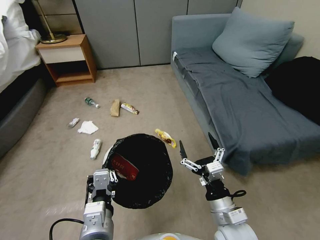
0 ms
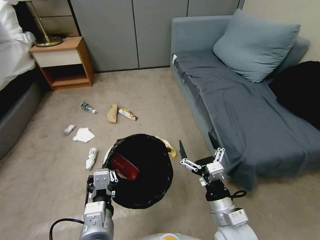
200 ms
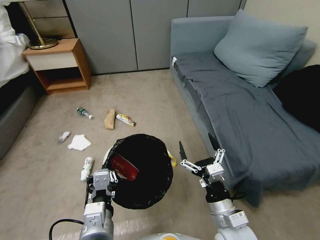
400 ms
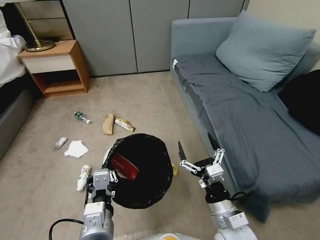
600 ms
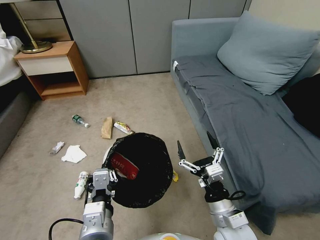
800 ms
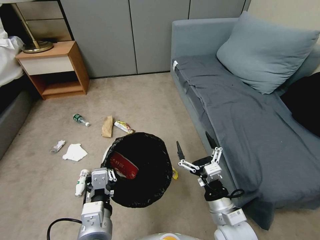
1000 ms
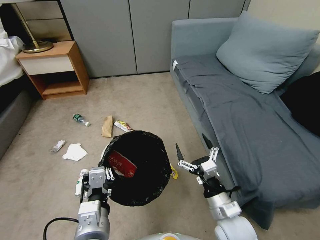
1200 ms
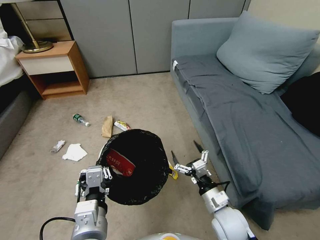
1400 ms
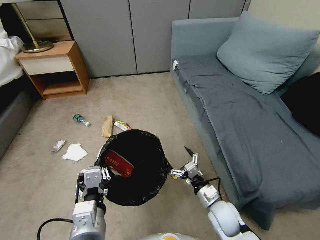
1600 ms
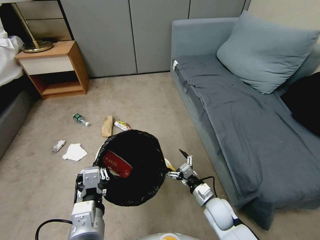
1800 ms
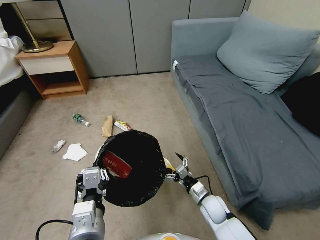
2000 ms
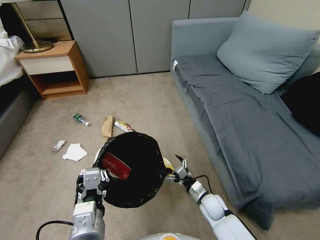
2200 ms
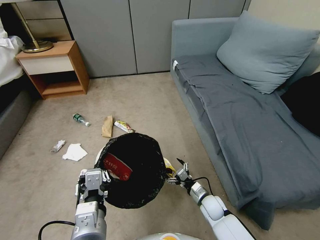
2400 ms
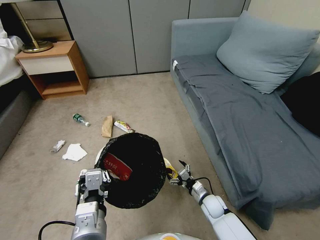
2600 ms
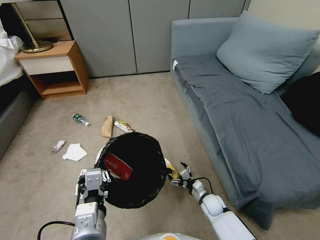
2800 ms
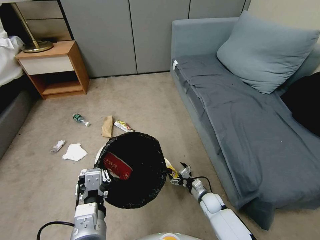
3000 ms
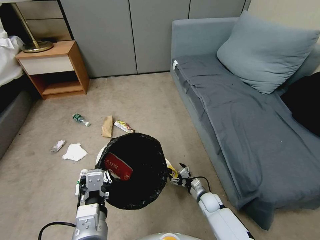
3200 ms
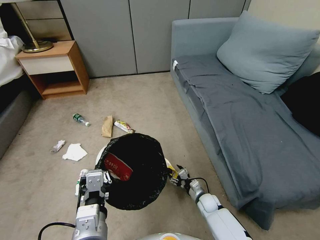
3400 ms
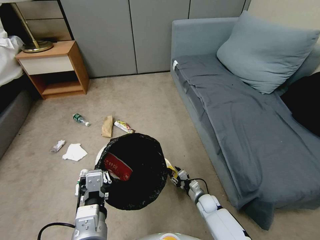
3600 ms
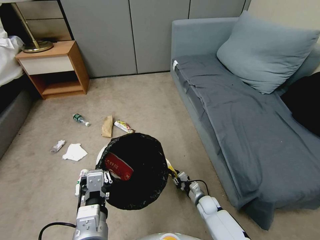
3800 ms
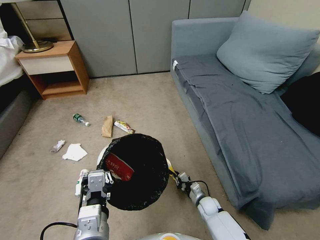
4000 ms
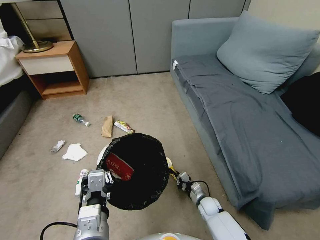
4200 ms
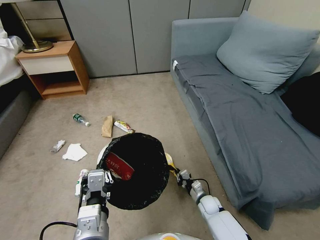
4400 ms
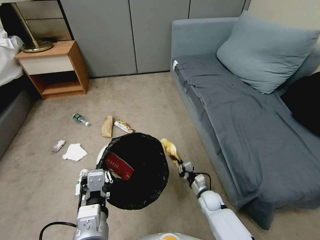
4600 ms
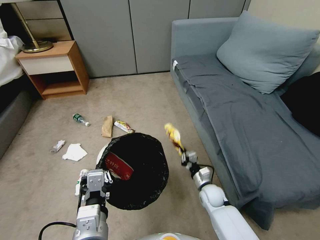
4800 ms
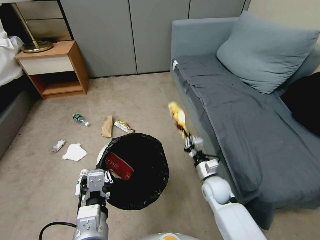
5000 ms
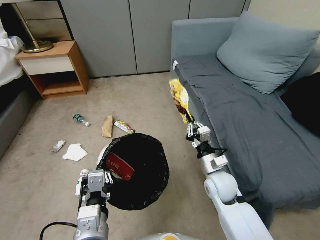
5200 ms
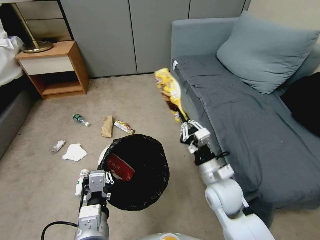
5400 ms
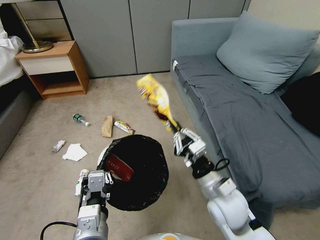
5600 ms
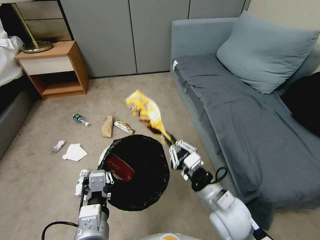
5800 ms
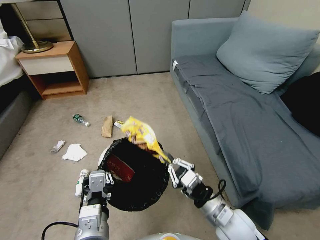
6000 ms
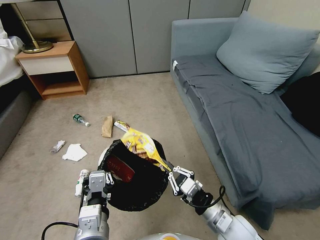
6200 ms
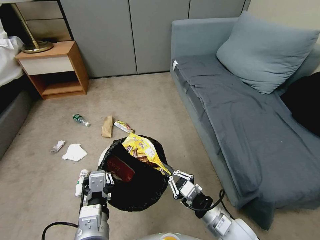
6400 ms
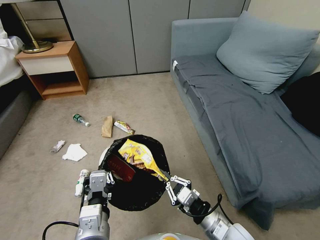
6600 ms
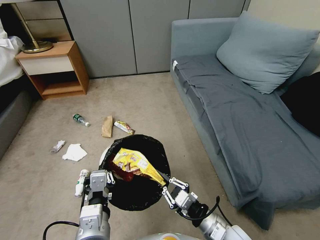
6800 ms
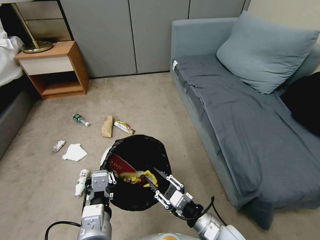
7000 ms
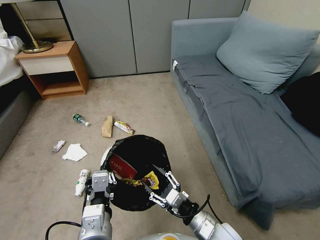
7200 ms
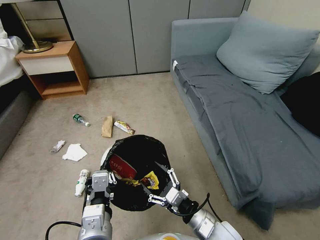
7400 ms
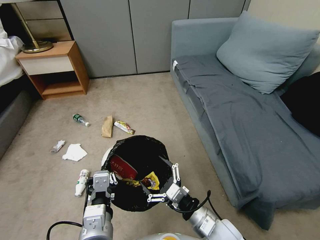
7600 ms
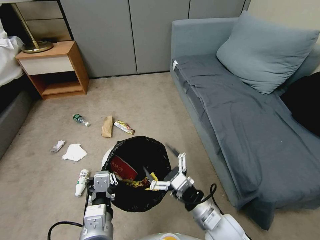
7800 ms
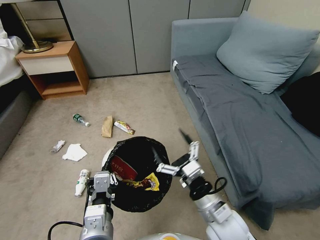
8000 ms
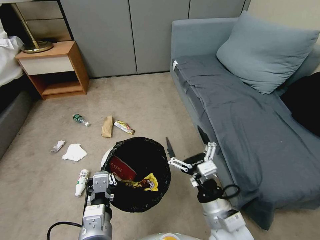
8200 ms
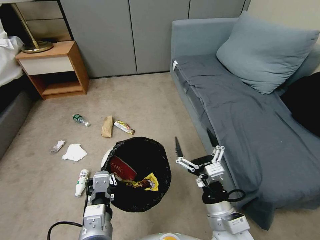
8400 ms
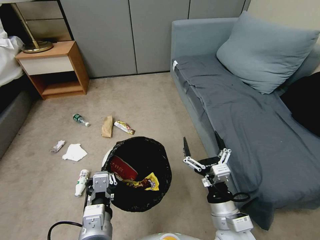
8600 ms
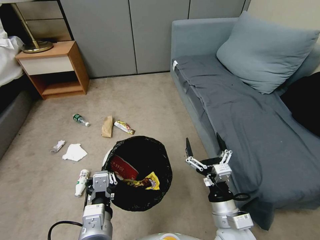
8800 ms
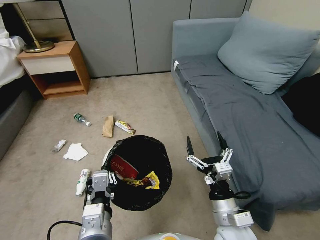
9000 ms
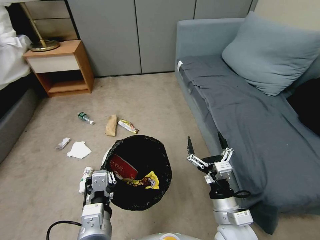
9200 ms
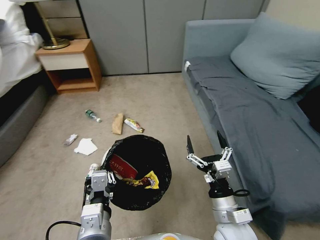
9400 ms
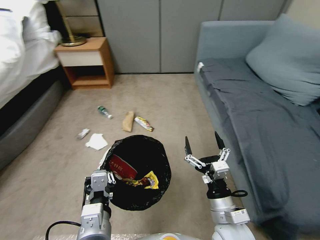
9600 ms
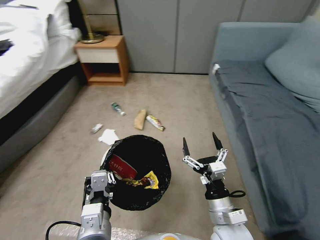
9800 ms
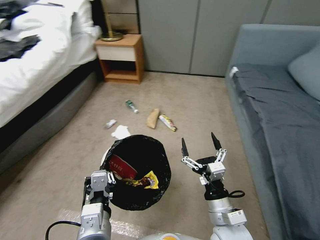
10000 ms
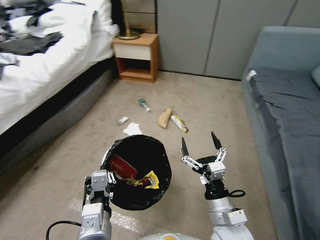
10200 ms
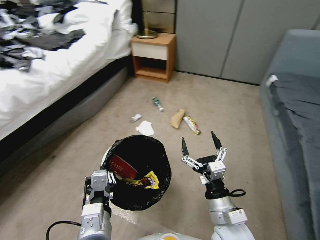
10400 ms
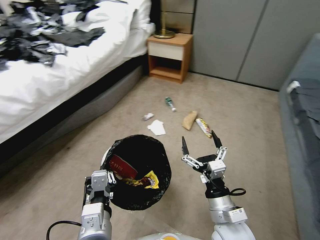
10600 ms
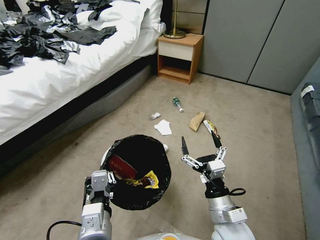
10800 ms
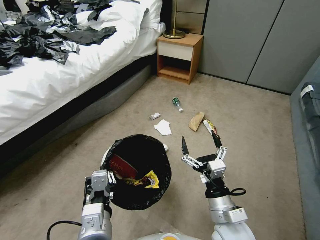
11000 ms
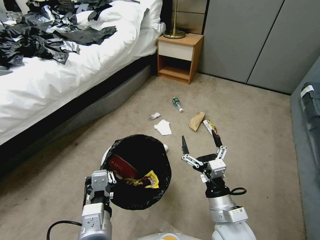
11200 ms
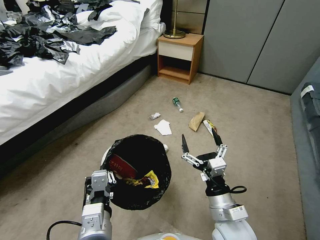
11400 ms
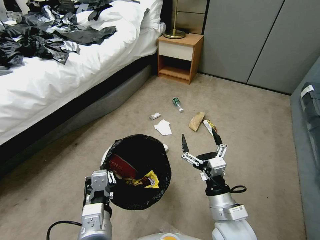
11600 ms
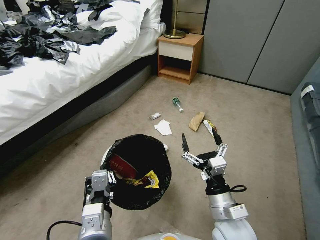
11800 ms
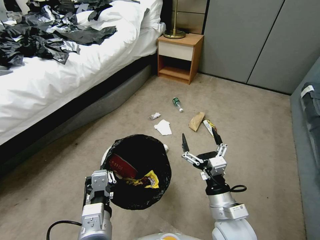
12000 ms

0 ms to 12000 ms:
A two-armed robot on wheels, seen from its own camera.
Task of the whole recording: Pick up the trash bin, then pick up the garbage from the floor and place it into the trash bin.
0 ms to 1600 ms: The right gripper shifts approximately 10 cm downward and forward.
1600 ms to 3000 ms: The right gripper heads downward and forward, covering roughly 15 cm.
3000 ms to 4400 ms: The right gripper closes its fingers.
4400 ms to 6000 ms: The right gripper heads upward and backward, covering some 30 cm.
6000 ms to 7600 ms: The right gripper opens its fingers.

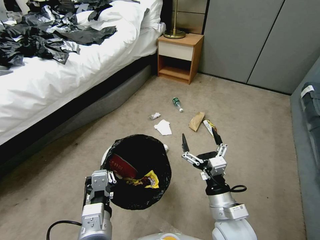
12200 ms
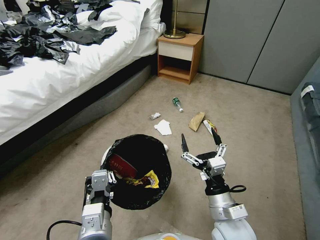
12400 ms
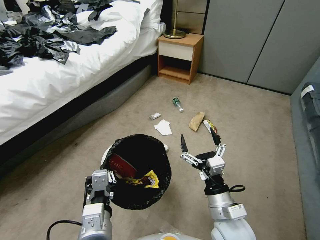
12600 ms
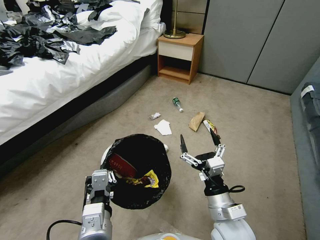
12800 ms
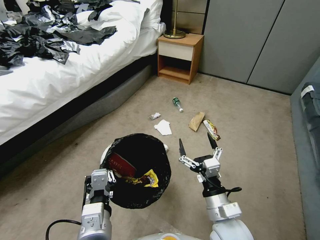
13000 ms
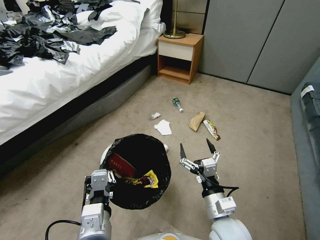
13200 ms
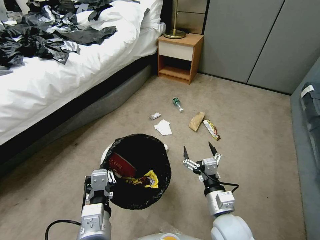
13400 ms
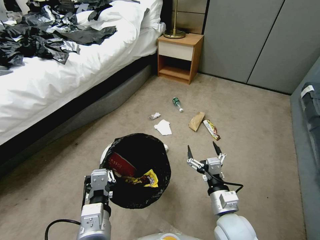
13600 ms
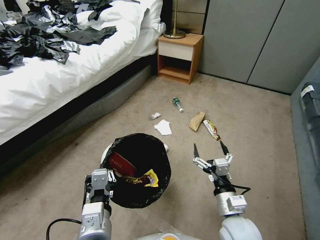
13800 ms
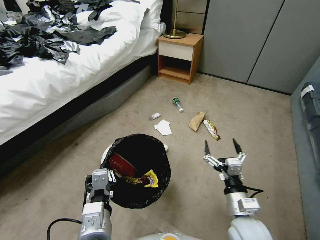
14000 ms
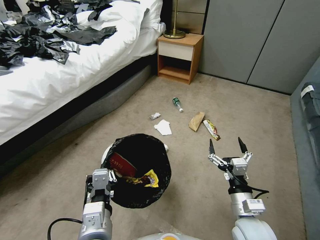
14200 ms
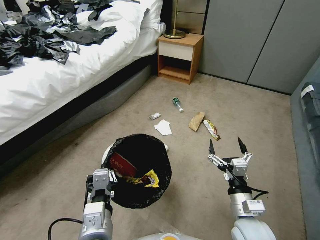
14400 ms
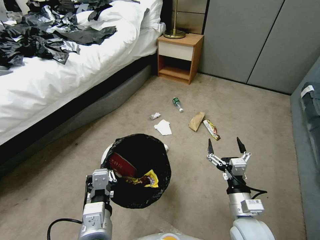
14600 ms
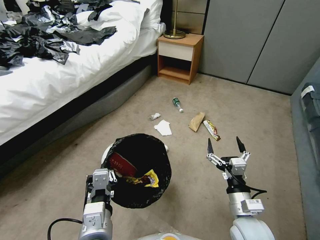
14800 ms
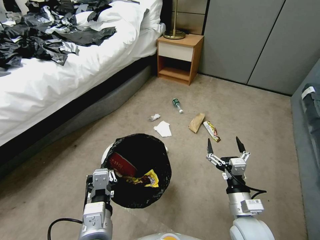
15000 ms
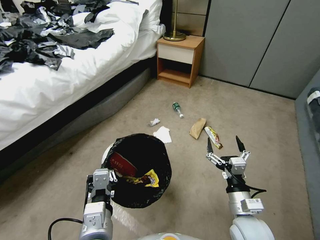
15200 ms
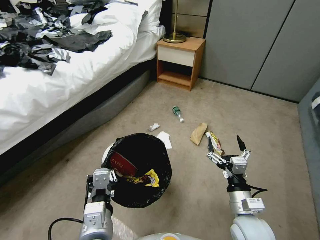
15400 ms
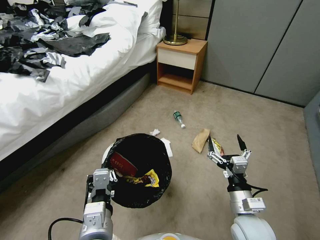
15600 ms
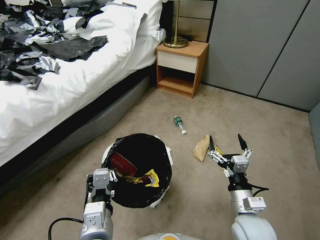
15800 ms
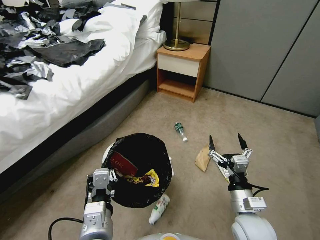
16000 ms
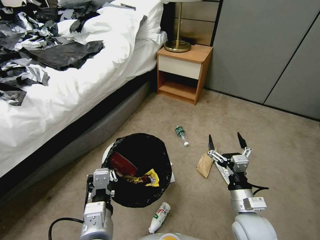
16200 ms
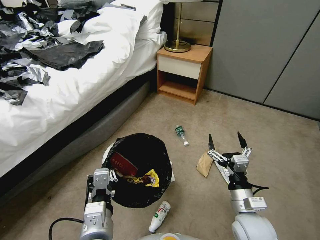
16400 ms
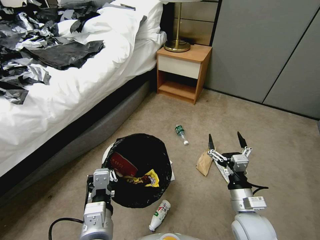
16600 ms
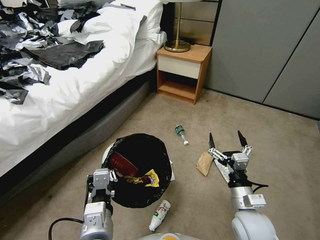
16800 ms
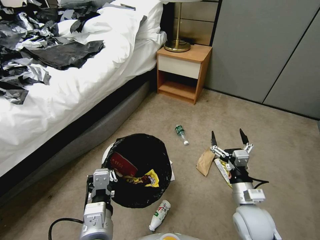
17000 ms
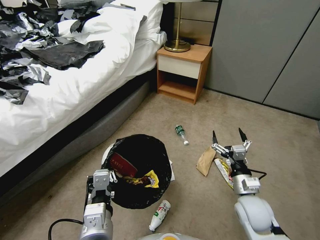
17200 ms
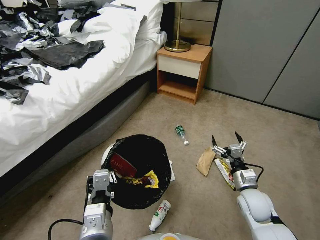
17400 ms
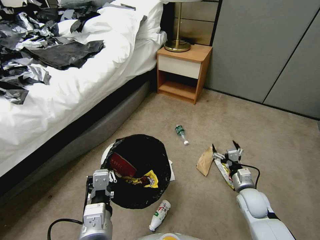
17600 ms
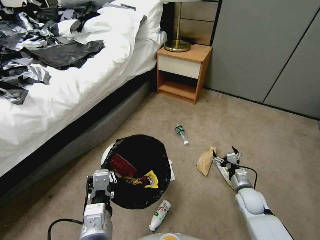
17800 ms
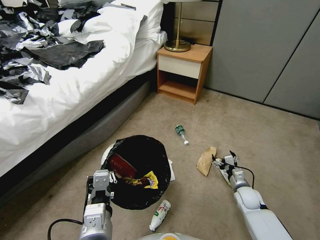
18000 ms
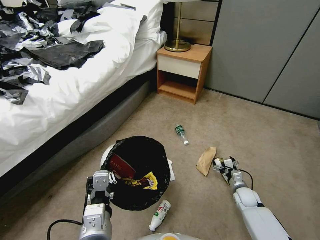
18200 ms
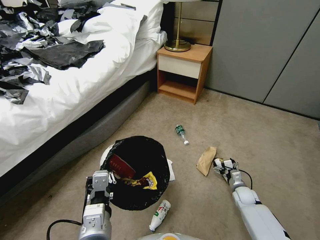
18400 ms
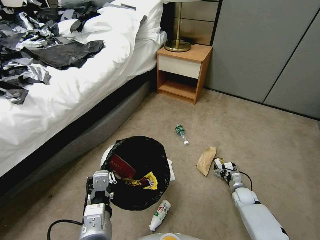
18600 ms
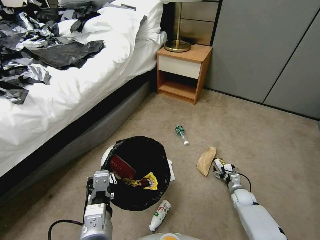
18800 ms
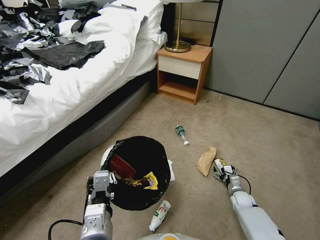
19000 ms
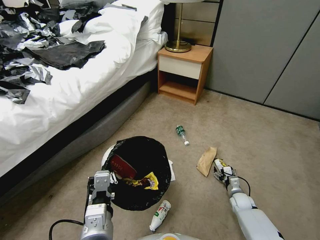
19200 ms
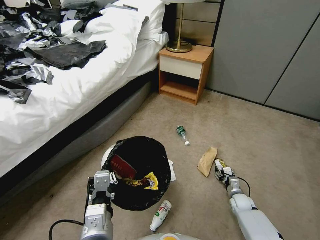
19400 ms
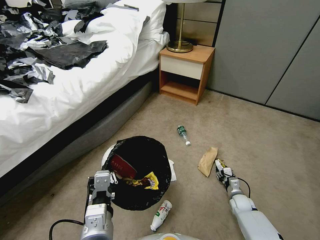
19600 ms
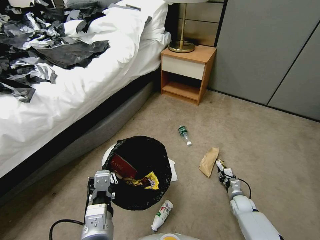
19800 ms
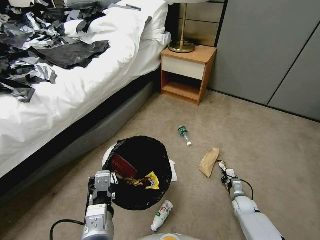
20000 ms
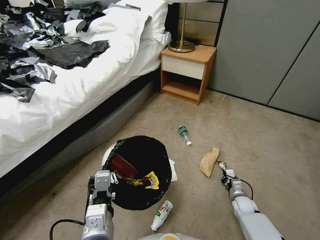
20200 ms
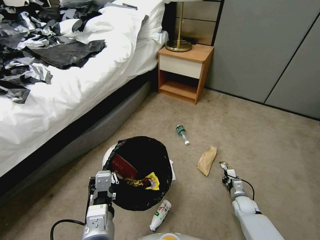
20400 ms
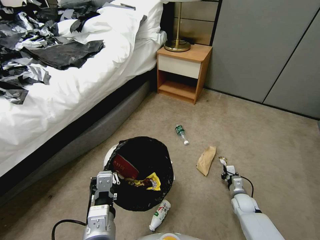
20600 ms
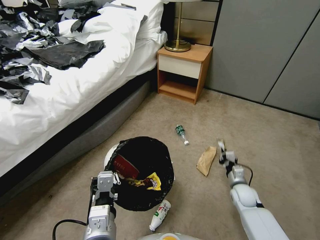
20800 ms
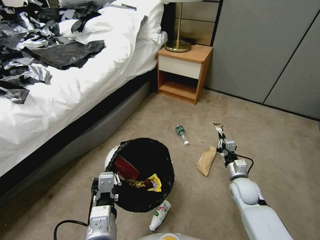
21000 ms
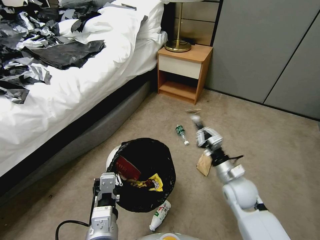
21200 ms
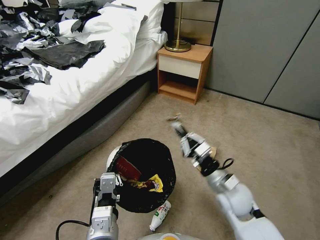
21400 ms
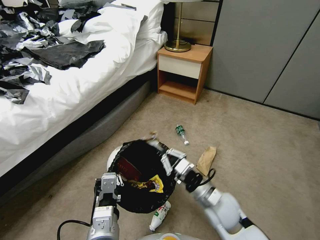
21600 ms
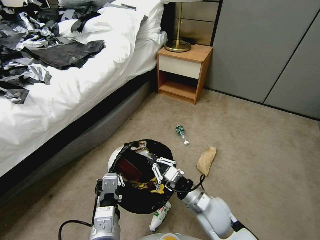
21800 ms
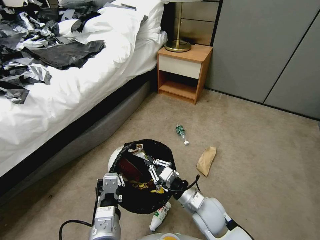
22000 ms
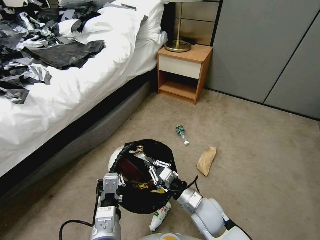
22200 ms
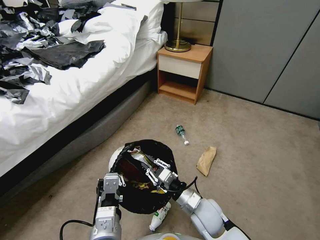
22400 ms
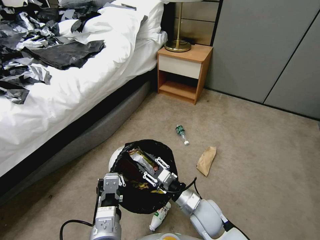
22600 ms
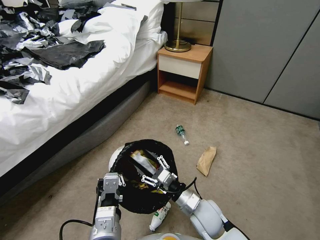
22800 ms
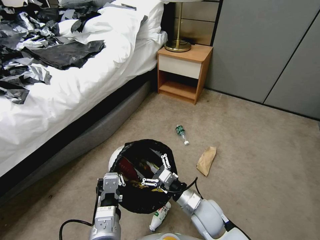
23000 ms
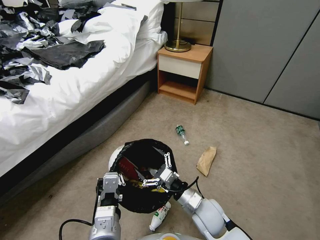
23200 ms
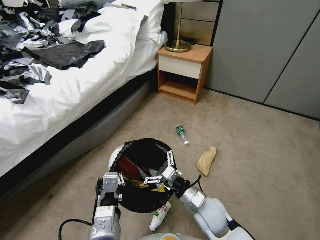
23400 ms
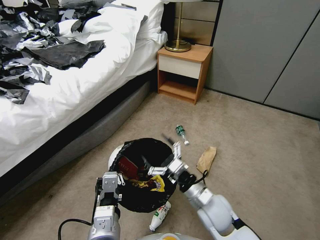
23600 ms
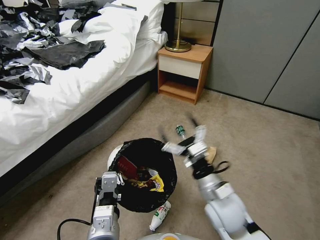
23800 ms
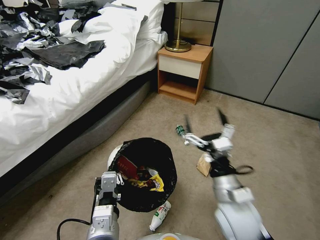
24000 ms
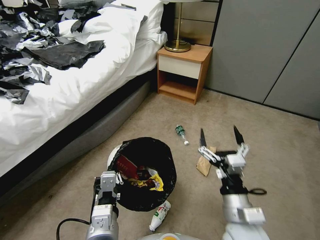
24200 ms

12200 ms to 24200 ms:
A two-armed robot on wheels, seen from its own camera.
Task of the whole recording: Pick up the trash bin, then pick up the garbage from the floor and place it into the trash bin.
16600 ms to 18200 ms: The right gripper moves downward, forward and to the right, some 25 cm.
18200 ms to 19800 ms: The right gripper is displaced downward by some 5 cm, and closes its fingers.
19800 ms to 21200 ms: The right gripper travels upward and to the left by approximately 25 cm, and closes its fingers.
21200 ms to 22600 ms: The right gripper shifts roughly 15 cm to the left and backward, and opens its fingers.
22600 ms to 24200 ms: The right gripper goes approximately 15 cm upward, backward and to the right, and opens.
